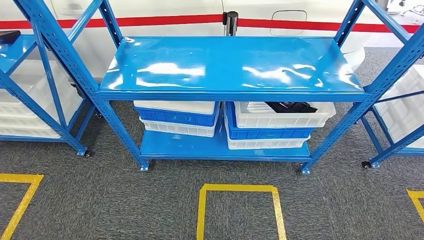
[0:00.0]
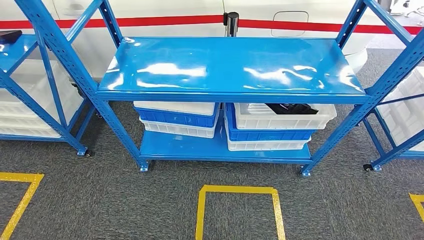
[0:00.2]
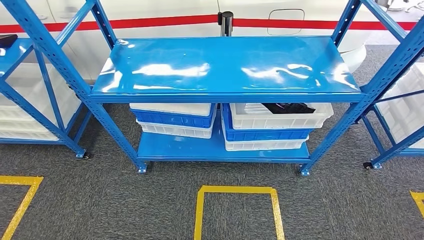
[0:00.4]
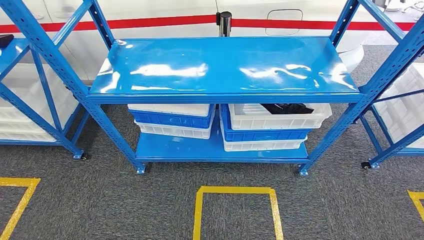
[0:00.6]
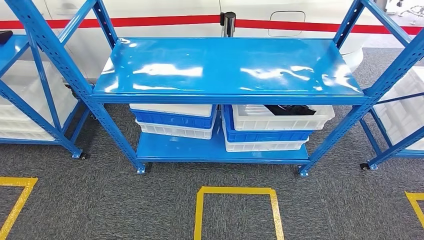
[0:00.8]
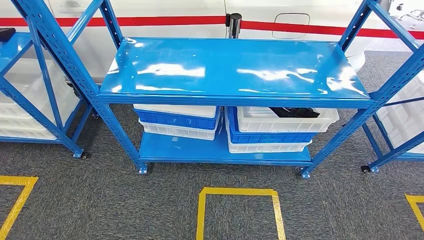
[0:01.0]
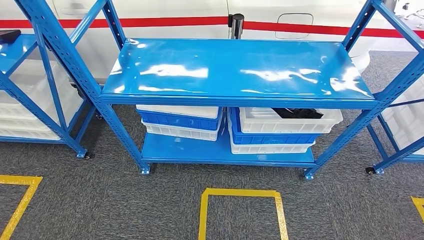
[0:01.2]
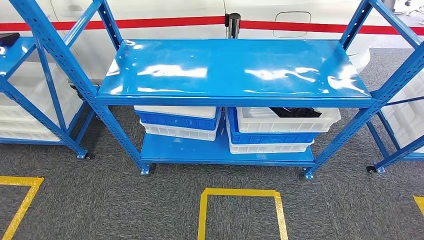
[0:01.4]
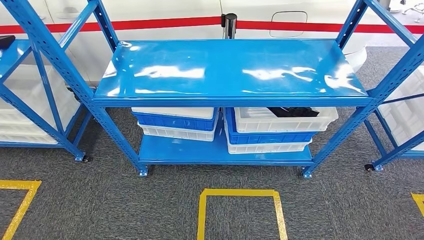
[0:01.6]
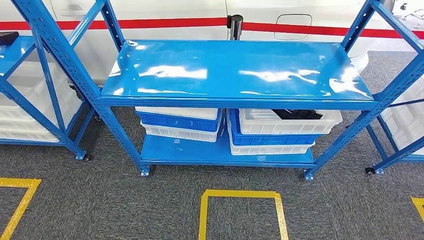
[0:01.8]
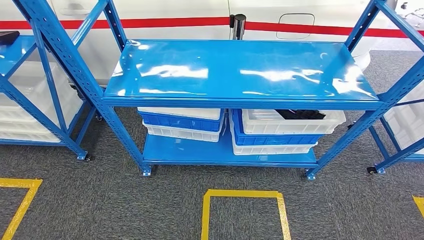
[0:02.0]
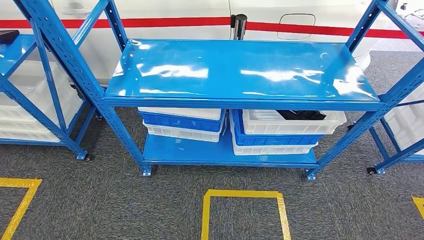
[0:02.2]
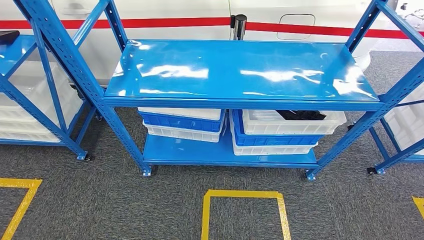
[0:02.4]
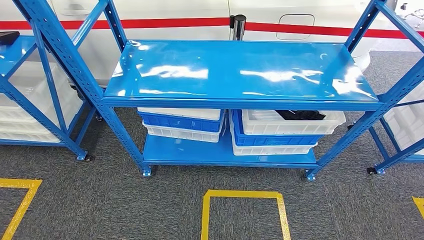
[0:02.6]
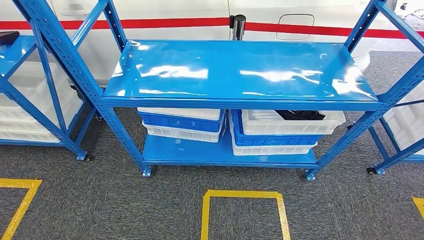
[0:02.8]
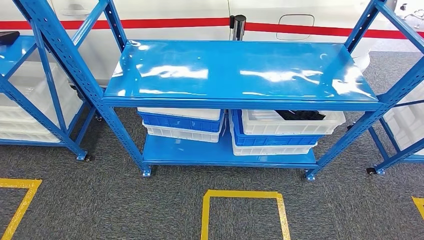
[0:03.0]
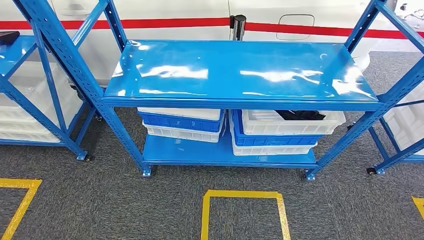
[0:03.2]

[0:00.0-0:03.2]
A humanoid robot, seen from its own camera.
Step, 0:00.0 to 0:03.0: Return to the initial position at the shelf.

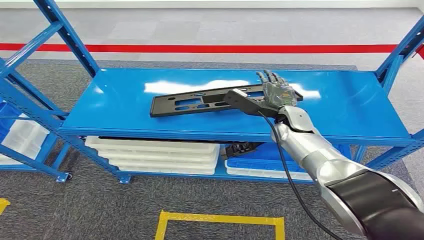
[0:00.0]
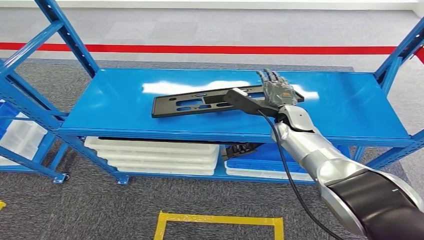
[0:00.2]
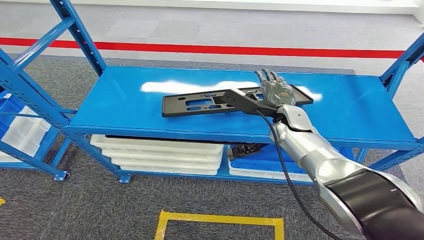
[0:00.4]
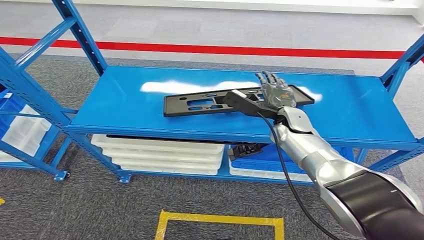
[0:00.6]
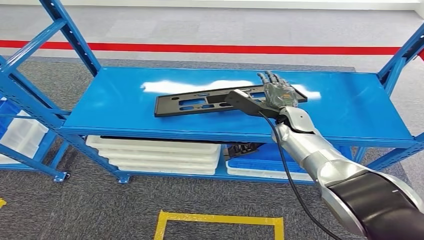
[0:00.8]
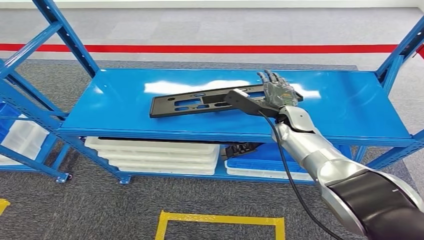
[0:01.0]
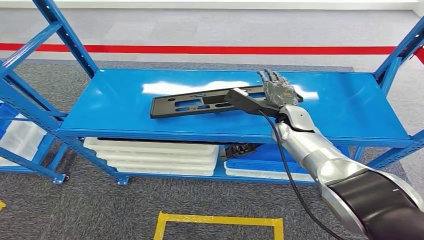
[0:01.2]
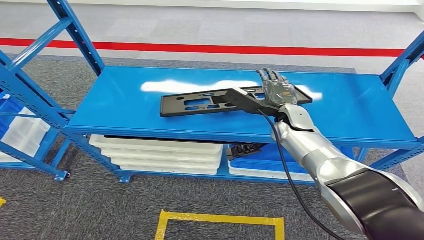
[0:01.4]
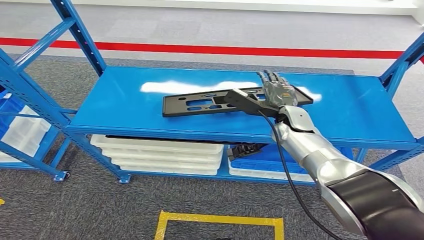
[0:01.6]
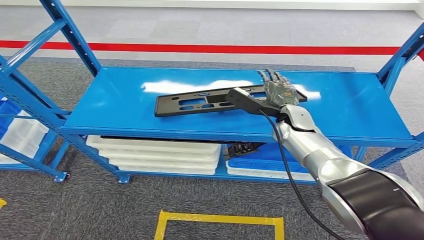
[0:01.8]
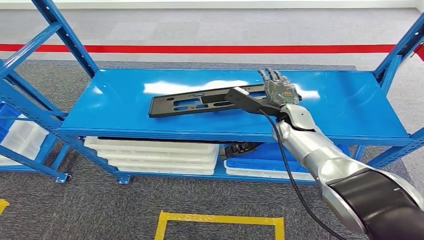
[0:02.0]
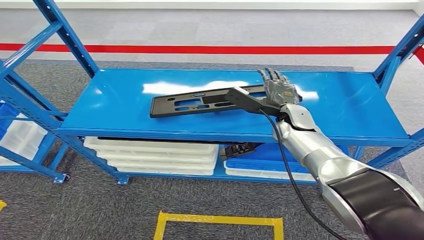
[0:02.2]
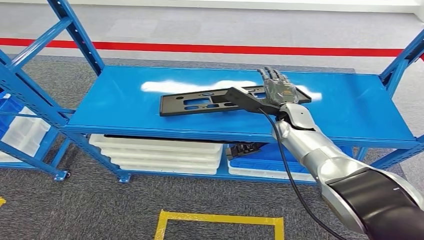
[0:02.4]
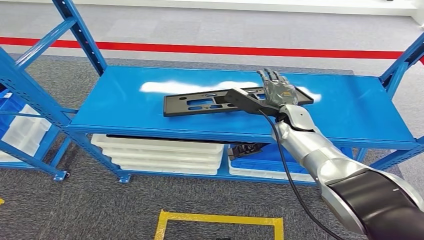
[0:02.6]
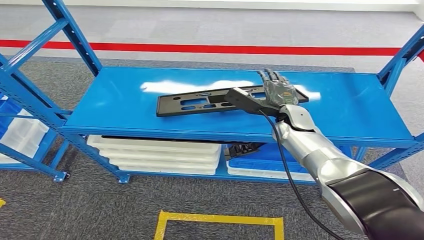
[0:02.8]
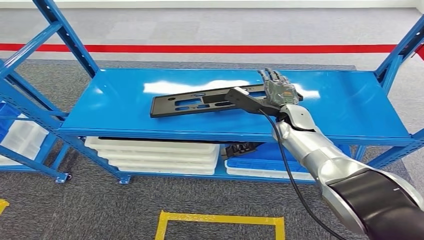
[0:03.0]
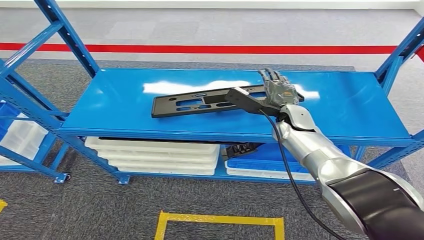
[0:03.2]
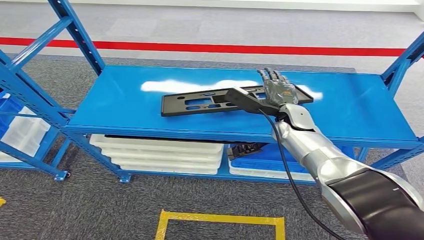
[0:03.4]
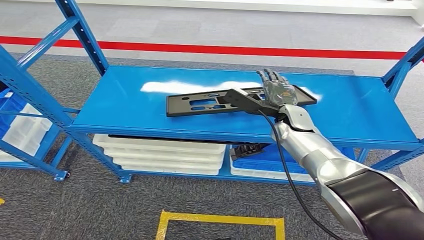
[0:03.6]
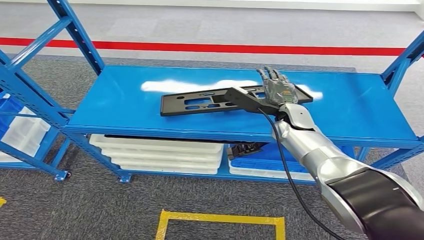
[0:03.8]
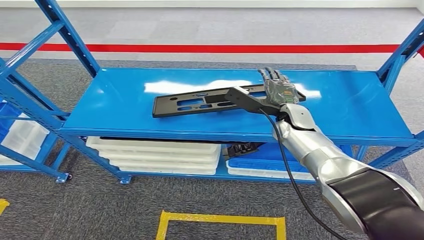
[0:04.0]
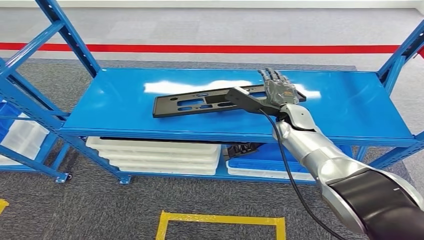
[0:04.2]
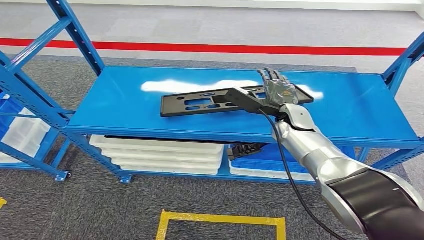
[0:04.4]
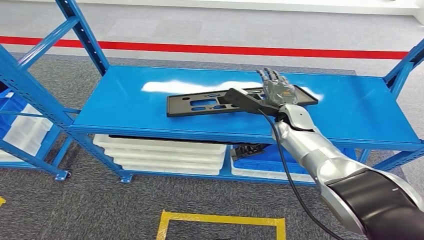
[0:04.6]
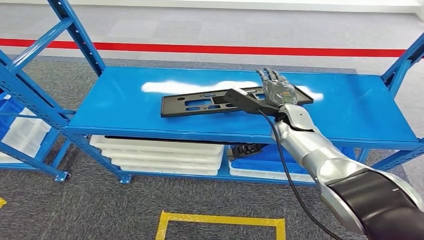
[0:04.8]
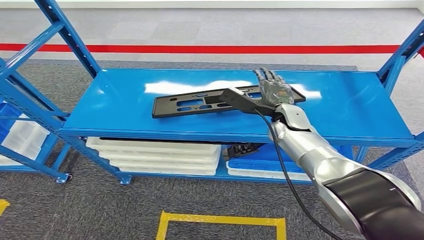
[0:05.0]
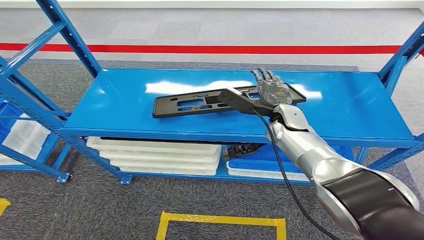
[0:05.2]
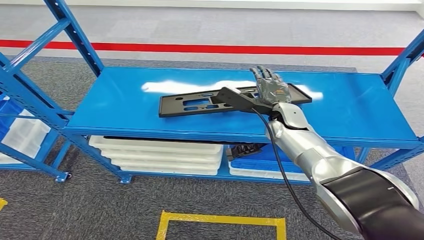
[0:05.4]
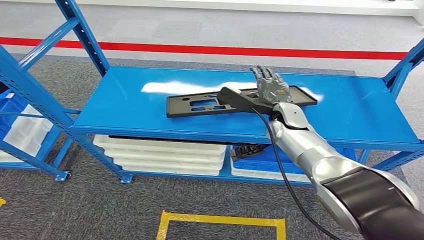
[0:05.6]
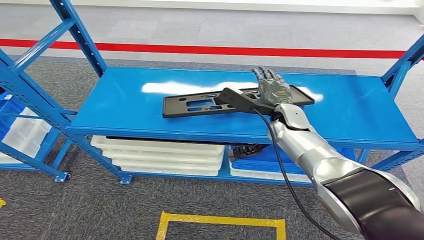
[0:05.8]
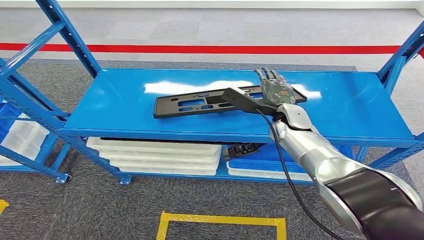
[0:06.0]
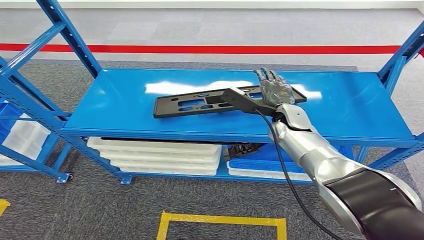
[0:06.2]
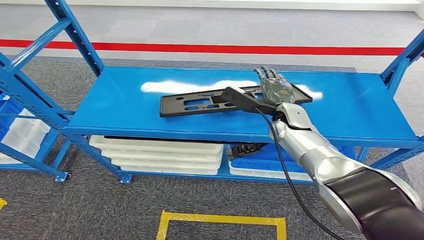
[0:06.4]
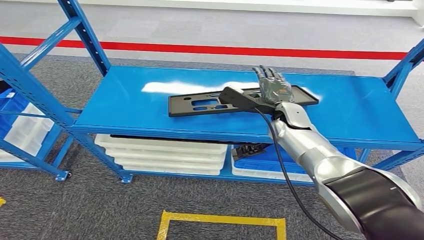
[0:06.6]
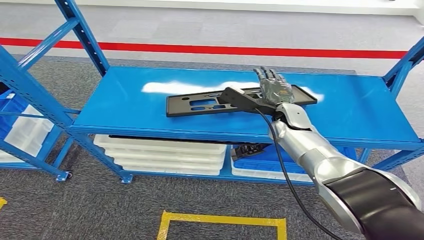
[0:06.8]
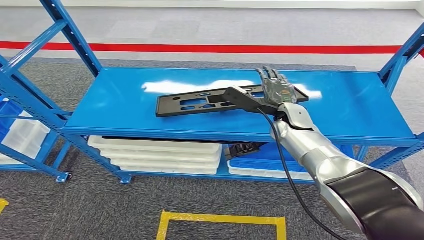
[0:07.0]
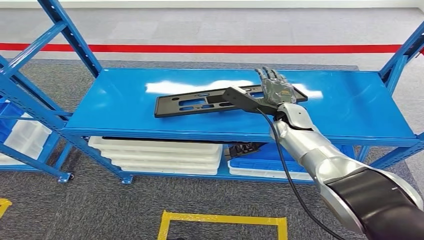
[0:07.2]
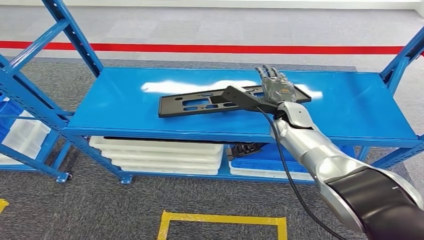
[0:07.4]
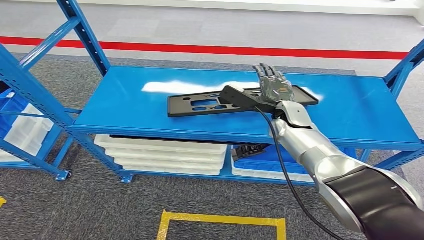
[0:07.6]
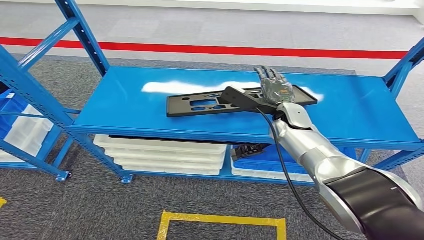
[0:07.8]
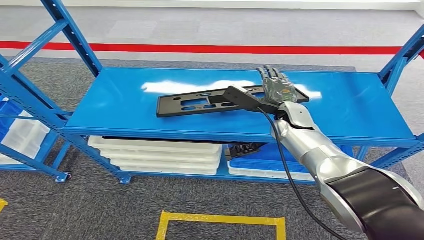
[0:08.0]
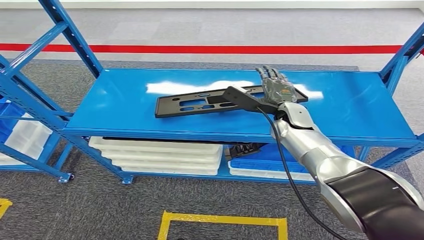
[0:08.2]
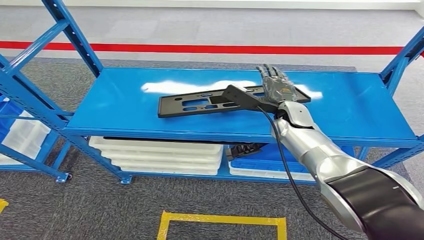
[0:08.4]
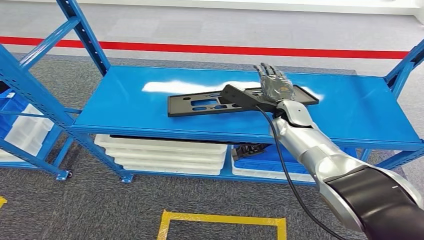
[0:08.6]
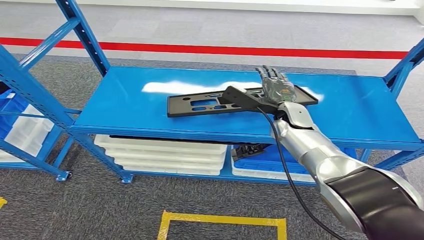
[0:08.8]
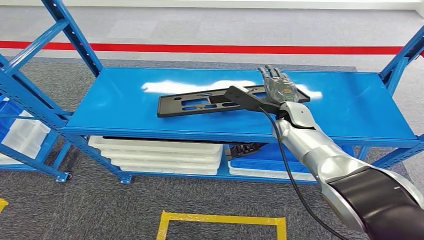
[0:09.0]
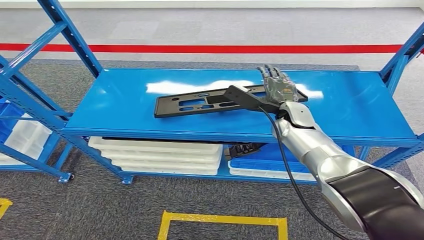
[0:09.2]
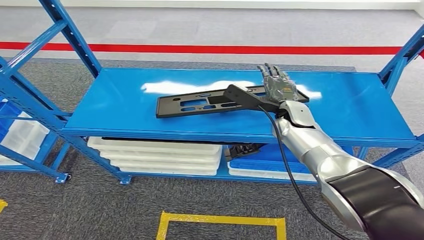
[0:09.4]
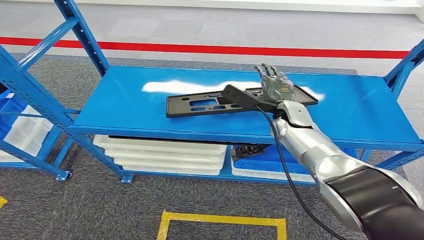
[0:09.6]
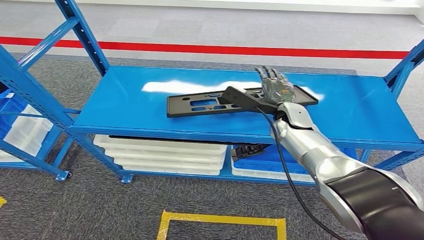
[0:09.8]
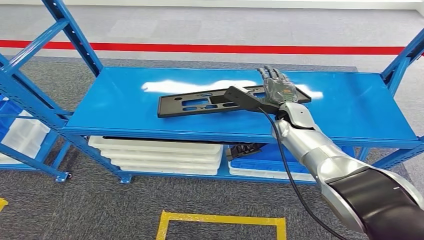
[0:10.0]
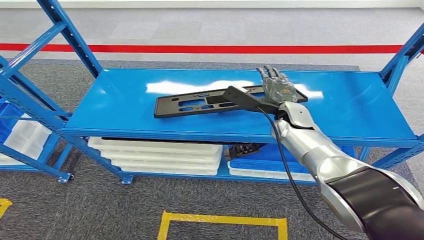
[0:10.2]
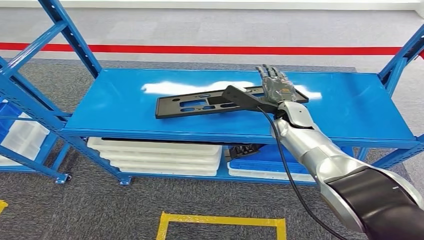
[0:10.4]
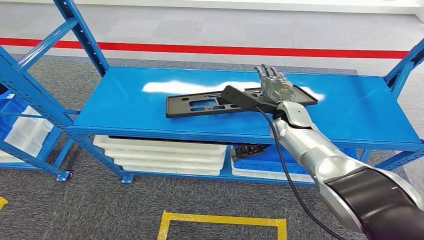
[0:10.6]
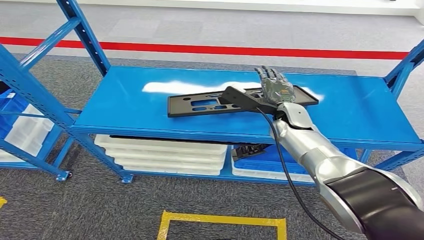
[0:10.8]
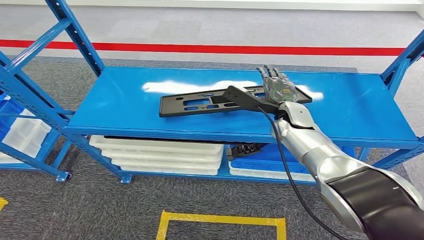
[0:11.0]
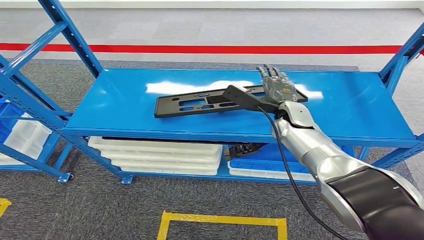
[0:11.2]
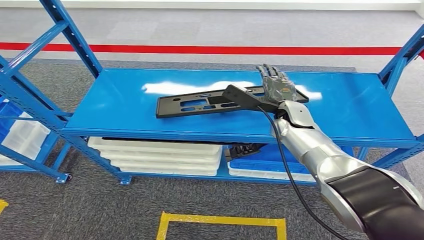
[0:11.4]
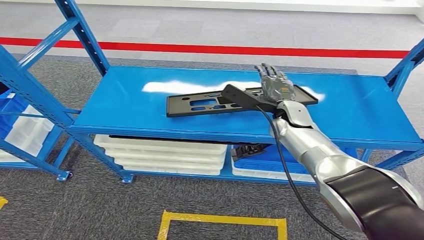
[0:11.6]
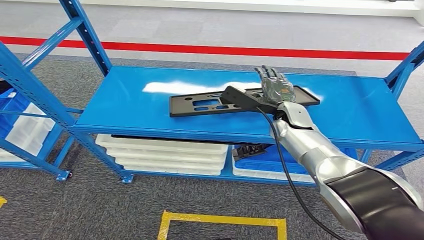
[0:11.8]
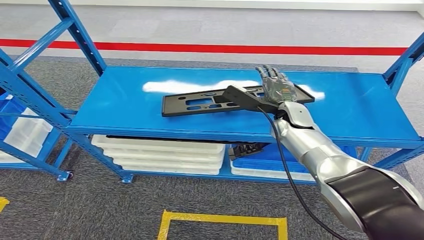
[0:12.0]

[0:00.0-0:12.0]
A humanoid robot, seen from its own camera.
0:03.0 to 0:04.4: Neither hand changes place.
0:04.4 to 0:06.0: The hands stay close to where they were, moving slightly.
0:09.0 to 0:12.0: Both hands stay put.

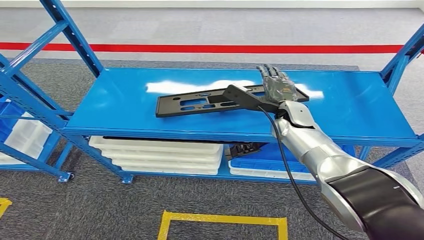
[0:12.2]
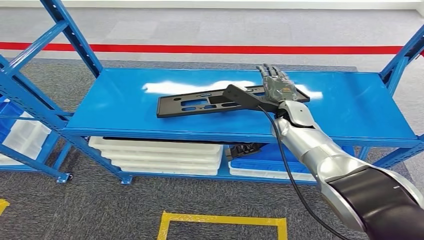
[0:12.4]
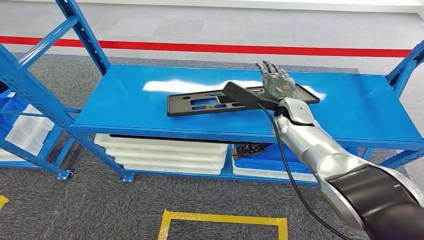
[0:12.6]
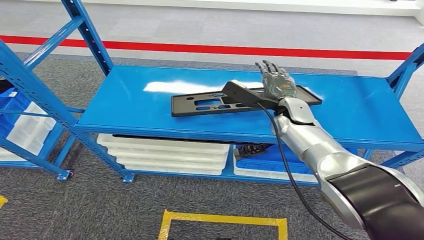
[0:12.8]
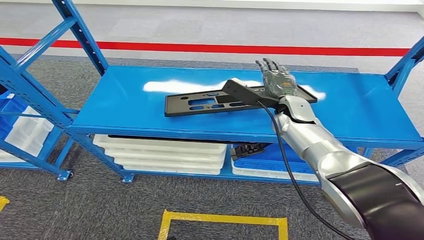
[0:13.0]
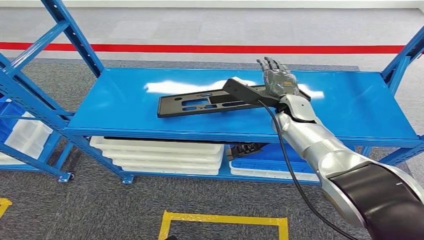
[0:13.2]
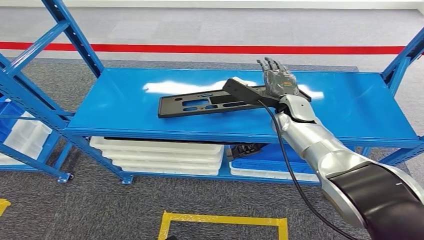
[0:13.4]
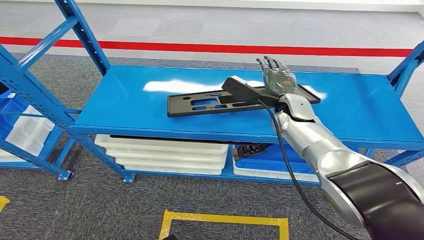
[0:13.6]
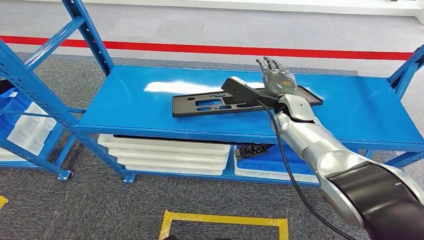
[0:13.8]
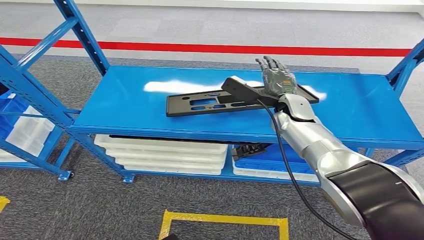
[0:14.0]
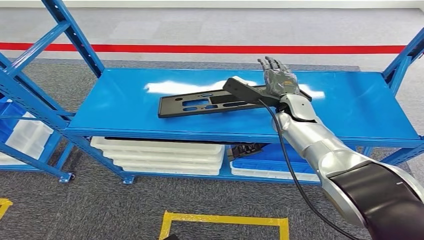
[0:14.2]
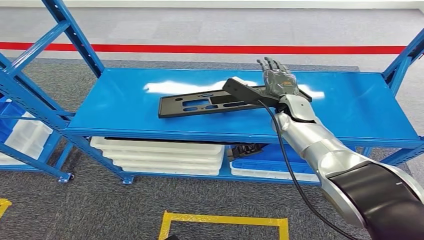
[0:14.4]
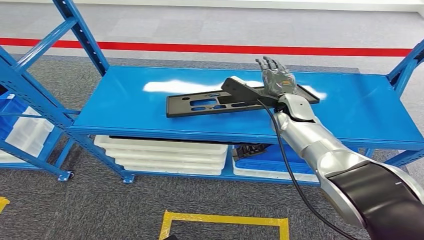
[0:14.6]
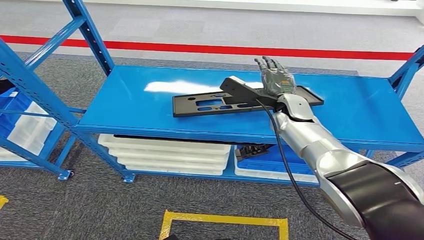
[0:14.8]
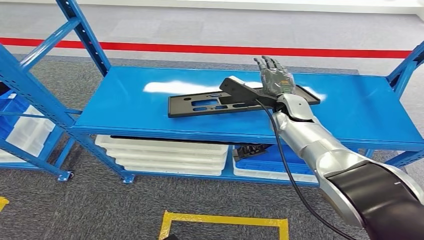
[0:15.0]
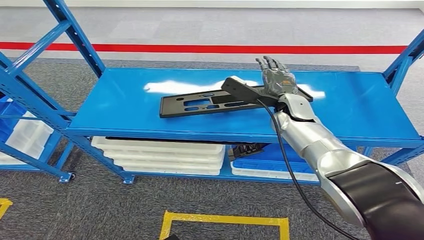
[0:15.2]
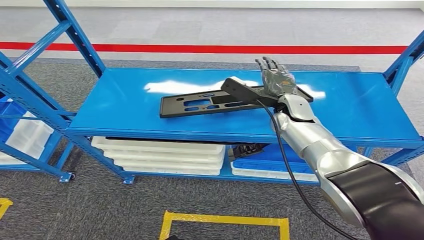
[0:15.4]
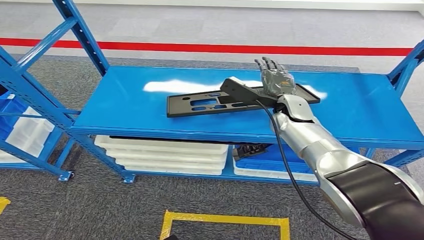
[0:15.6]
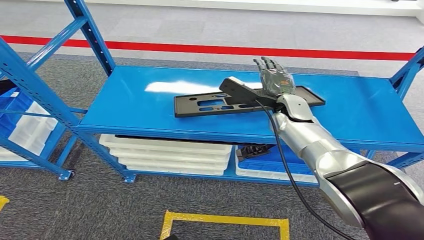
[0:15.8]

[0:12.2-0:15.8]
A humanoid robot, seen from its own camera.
0:14.0 to 0:15.8: Neither hand changes place.
